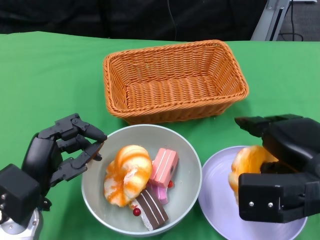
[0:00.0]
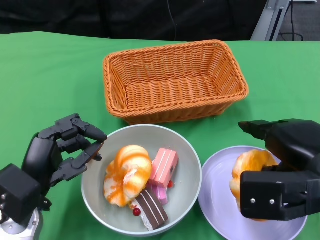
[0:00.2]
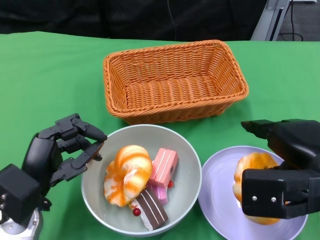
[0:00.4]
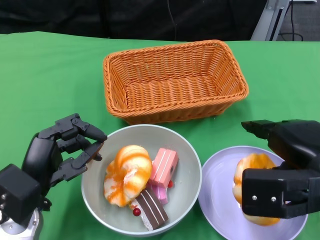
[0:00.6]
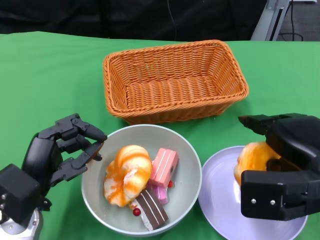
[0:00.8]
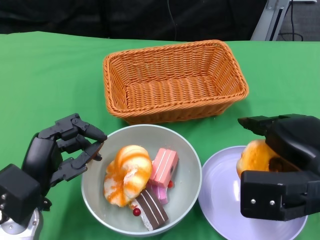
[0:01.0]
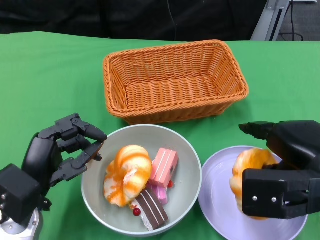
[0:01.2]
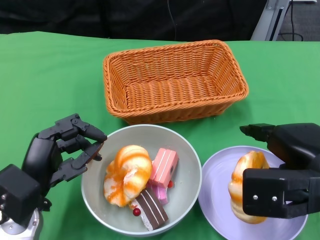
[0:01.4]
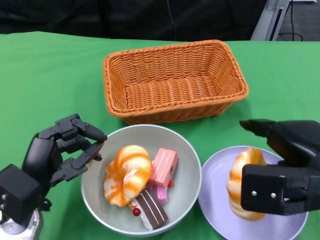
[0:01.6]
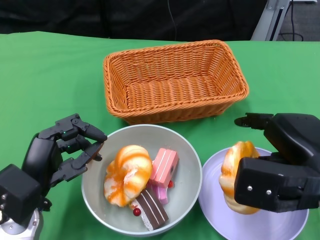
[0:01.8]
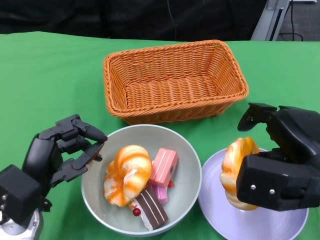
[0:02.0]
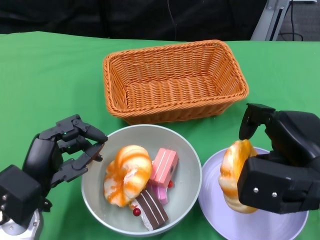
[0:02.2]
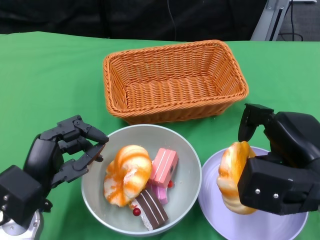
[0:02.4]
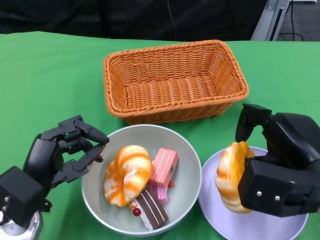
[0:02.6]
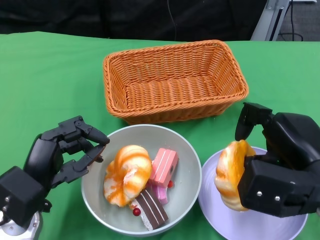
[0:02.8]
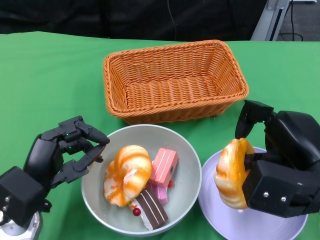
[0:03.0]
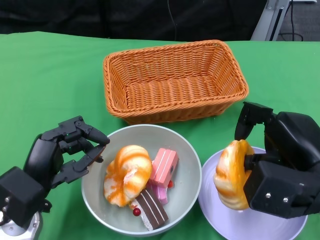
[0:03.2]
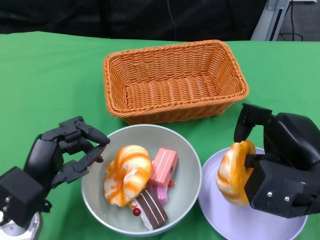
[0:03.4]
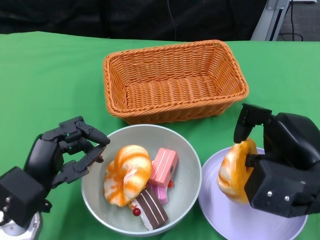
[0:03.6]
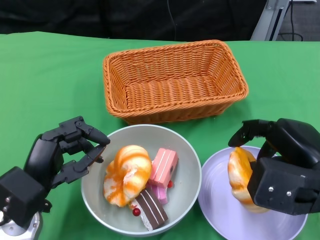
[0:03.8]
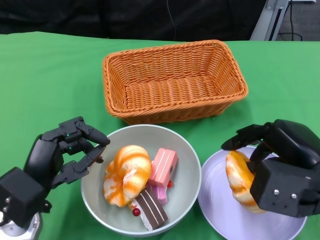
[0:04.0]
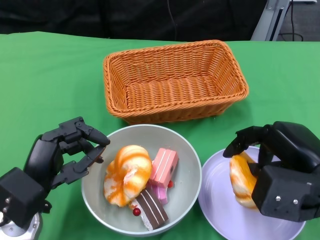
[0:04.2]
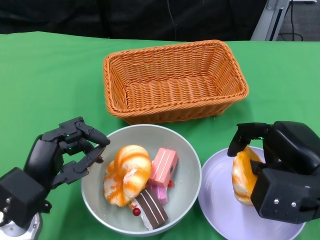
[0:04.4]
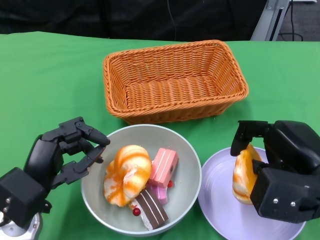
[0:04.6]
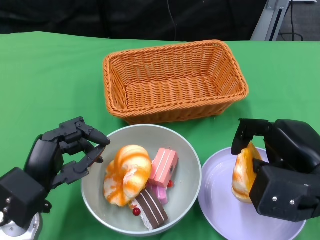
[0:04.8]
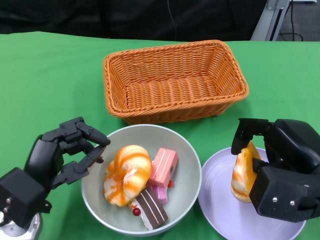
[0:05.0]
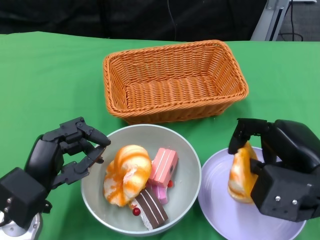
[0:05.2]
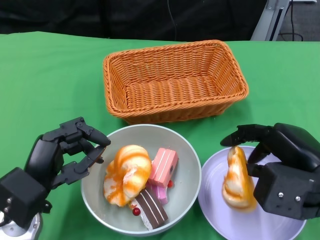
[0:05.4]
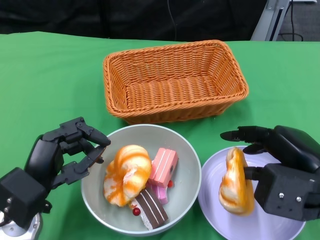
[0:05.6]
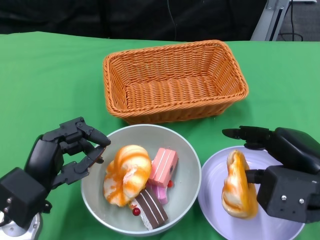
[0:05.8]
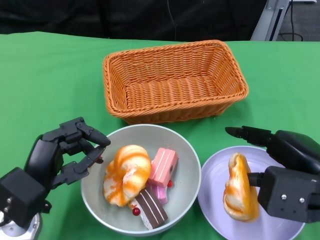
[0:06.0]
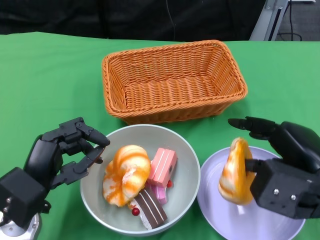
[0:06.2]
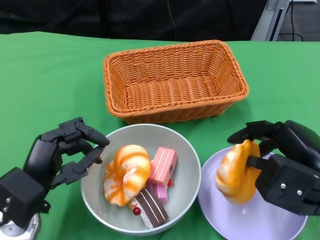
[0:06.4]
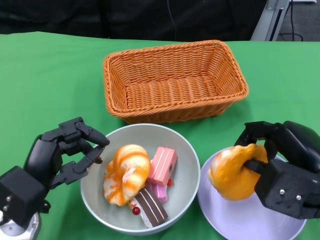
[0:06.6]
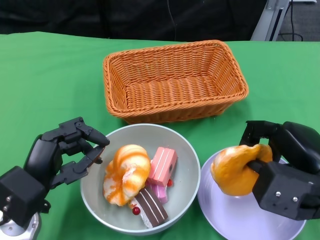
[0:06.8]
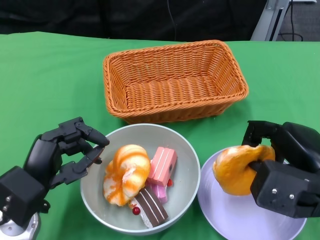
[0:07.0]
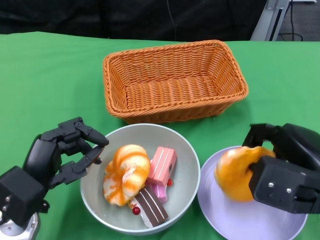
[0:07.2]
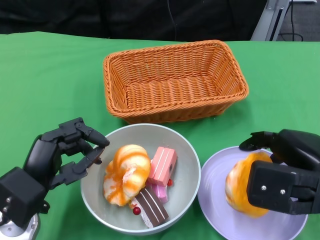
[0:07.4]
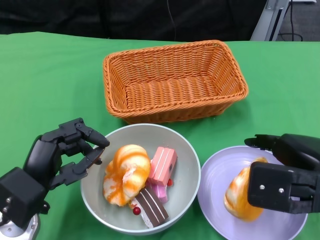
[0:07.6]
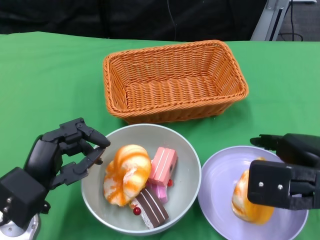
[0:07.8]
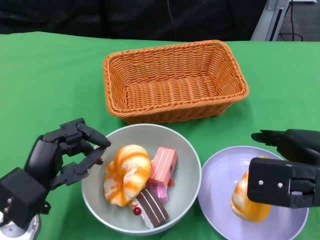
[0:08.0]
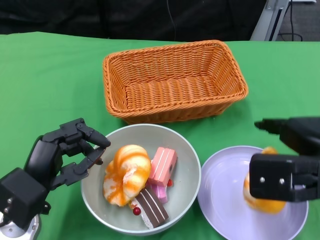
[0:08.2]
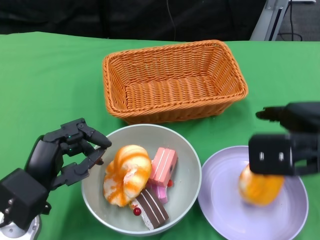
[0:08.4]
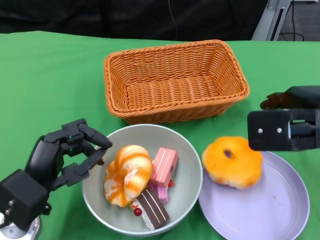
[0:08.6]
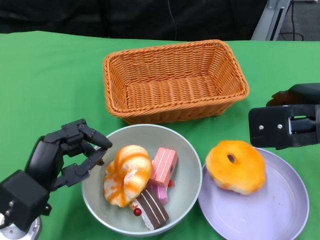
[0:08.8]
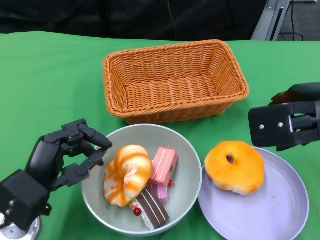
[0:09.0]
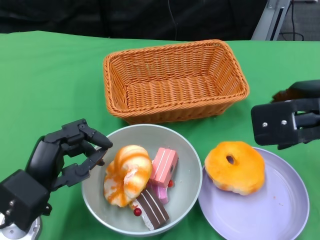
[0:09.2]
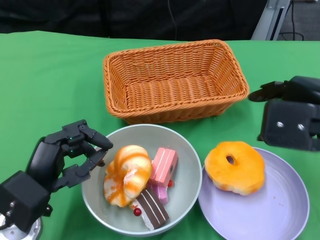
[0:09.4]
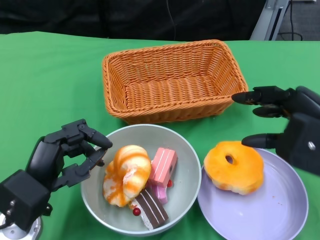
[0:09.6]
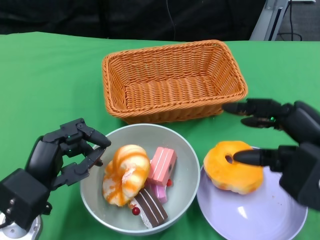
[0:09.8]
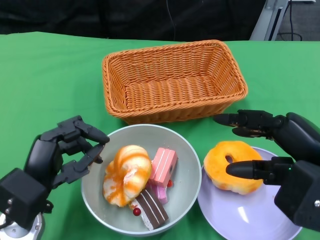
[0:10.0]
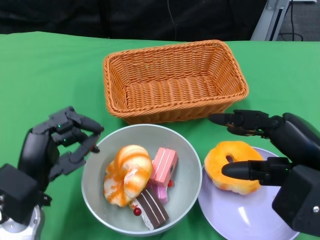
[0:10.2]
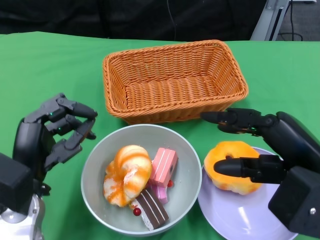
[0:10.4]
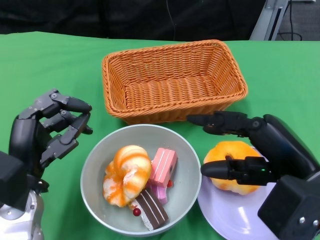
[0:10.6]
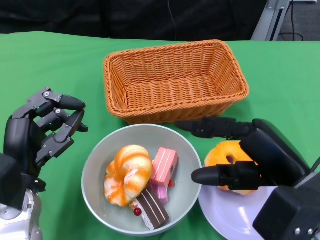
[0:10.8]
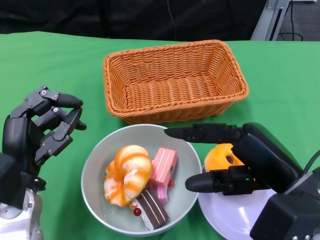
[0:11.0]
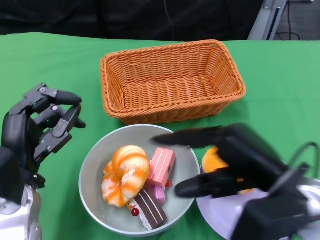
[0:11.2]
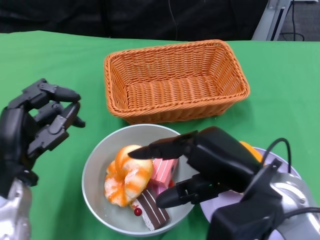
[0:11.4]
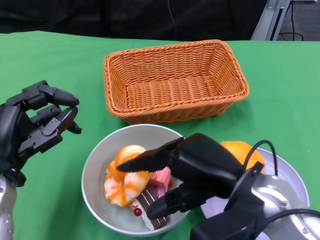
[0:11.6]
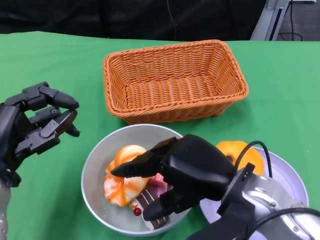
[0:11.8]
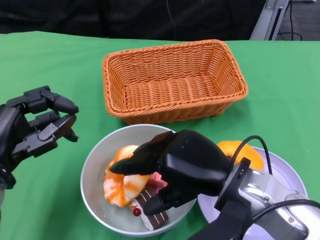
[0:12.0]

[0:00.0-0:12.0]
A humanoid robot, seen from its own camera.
0:00.0 to 0:01.6: There are only small adjustments of the hands.
0:03.0 to 0:06.0: There are only small adjustments of the hands.
0:06.0 to 0:07.6: The hands make only small movements.
0:07.6 to 0:09.0: The right hand goes about 10 cm upward and forward.
0:09.0 to 0:10.4: The right hand is displaced backward by roughly 10 cm.
0:10.4 to 0:12.0: The right hand is displaced to the left by some 10 cm, while the left hand ends up roughly 5 cm from where it was.

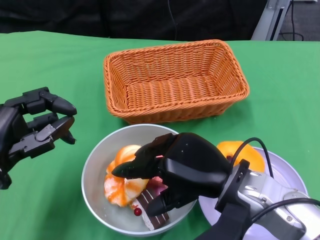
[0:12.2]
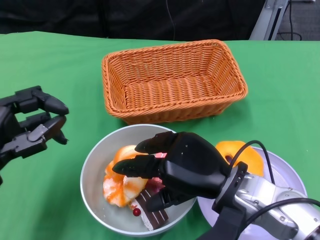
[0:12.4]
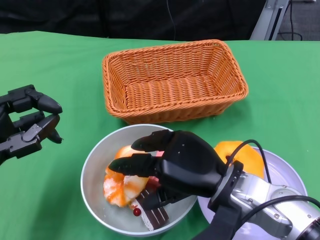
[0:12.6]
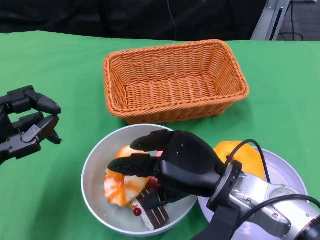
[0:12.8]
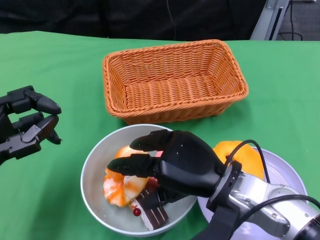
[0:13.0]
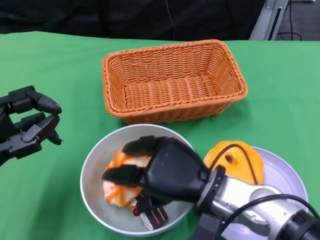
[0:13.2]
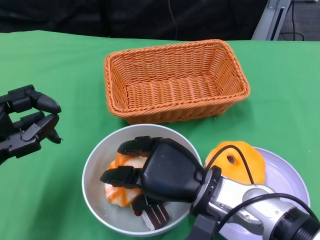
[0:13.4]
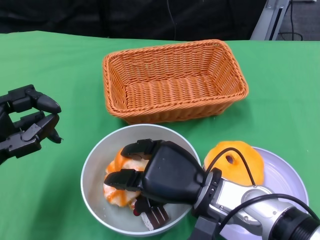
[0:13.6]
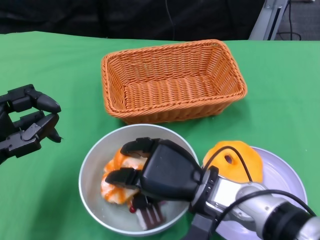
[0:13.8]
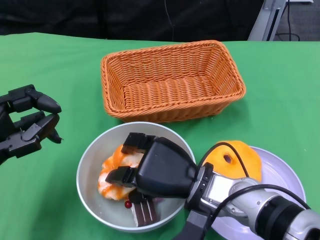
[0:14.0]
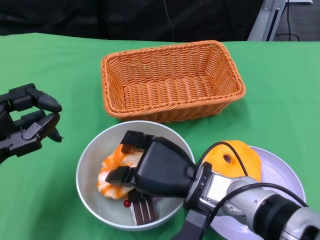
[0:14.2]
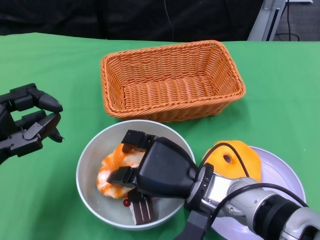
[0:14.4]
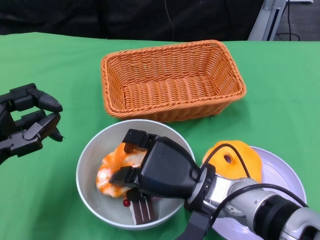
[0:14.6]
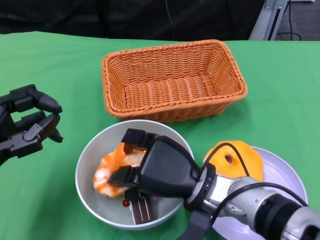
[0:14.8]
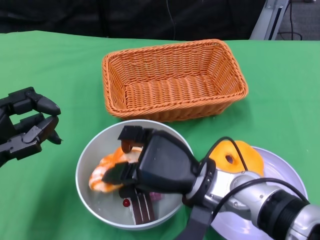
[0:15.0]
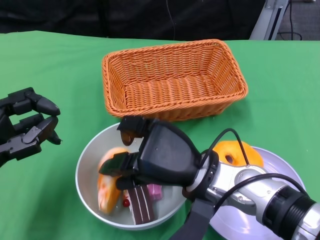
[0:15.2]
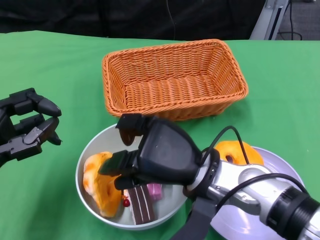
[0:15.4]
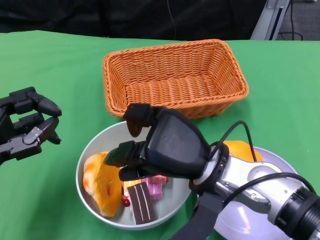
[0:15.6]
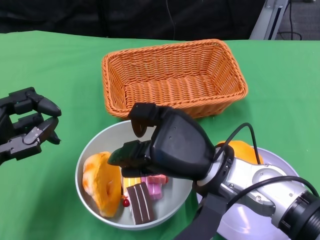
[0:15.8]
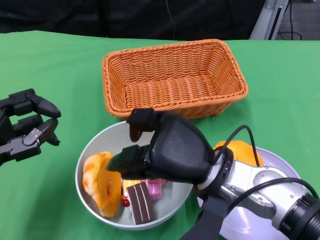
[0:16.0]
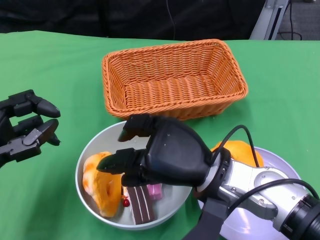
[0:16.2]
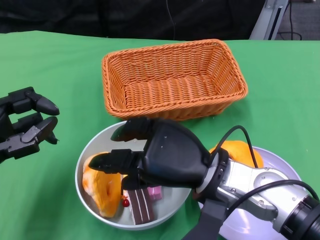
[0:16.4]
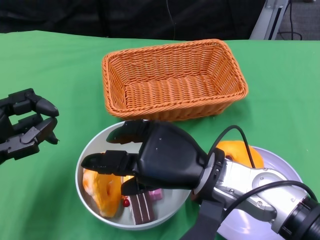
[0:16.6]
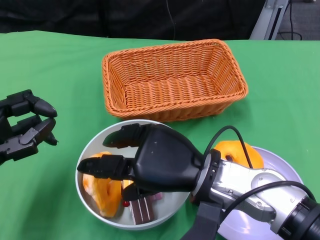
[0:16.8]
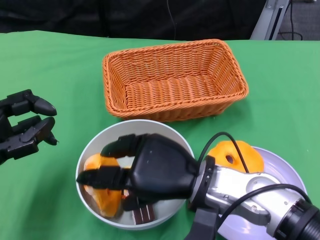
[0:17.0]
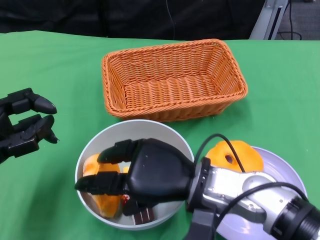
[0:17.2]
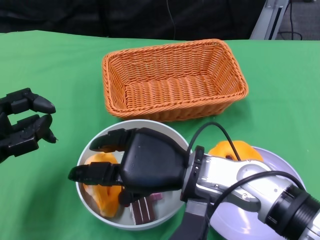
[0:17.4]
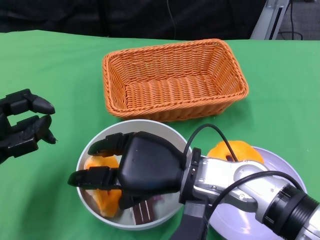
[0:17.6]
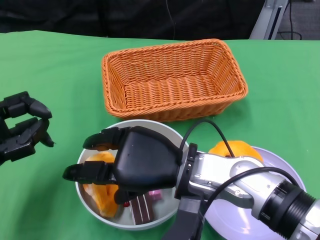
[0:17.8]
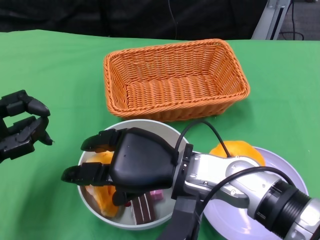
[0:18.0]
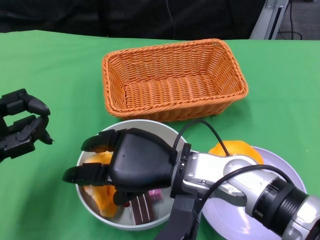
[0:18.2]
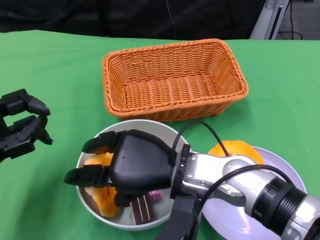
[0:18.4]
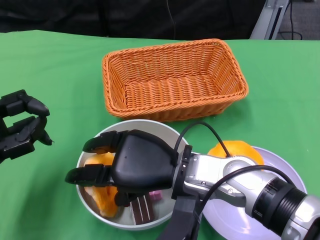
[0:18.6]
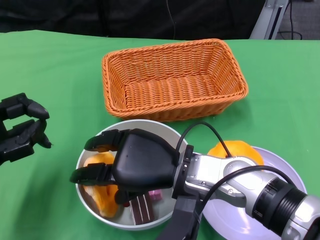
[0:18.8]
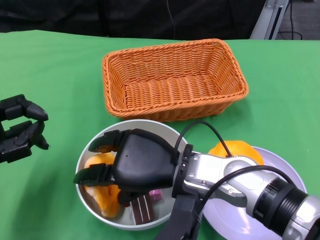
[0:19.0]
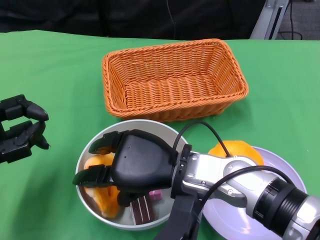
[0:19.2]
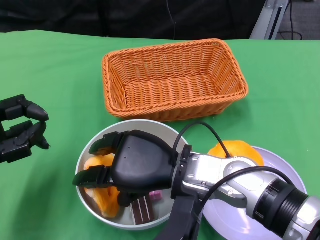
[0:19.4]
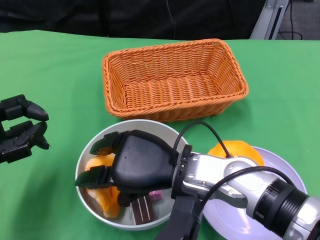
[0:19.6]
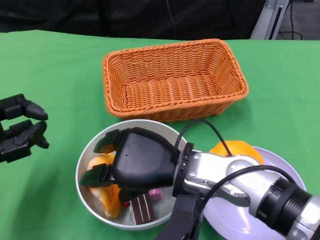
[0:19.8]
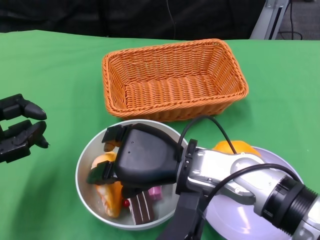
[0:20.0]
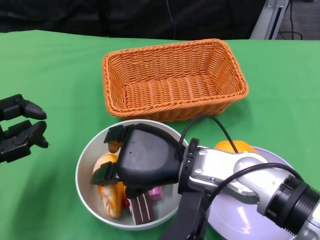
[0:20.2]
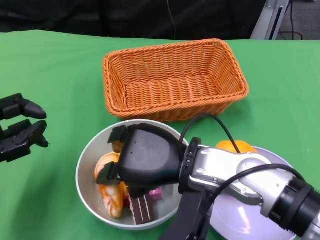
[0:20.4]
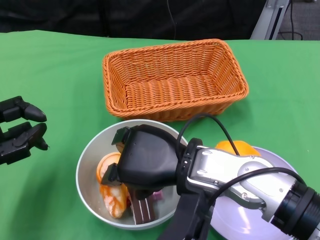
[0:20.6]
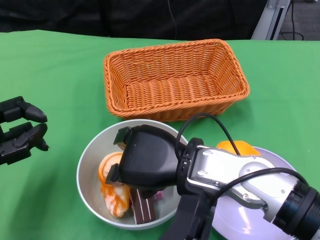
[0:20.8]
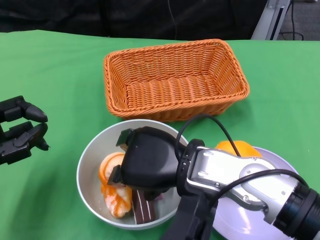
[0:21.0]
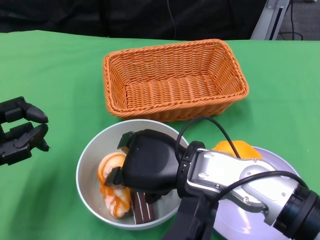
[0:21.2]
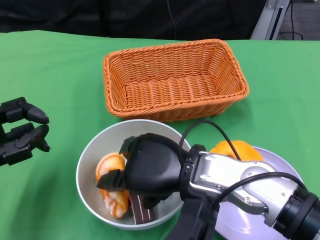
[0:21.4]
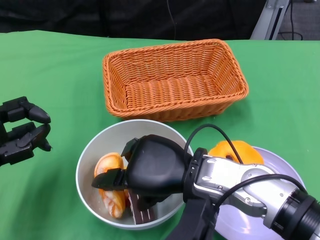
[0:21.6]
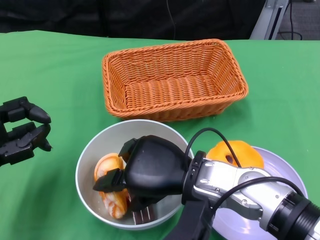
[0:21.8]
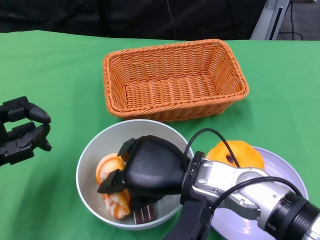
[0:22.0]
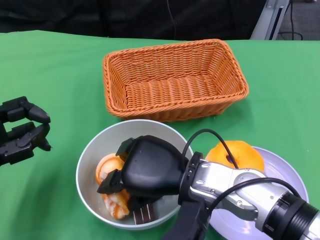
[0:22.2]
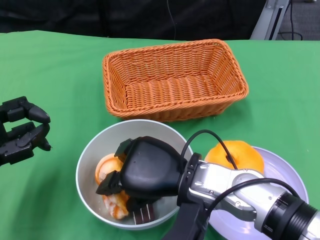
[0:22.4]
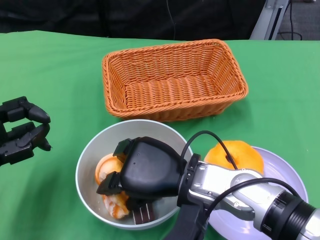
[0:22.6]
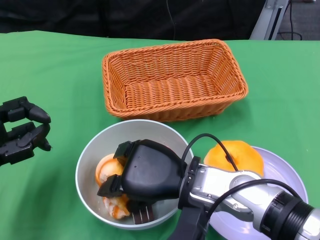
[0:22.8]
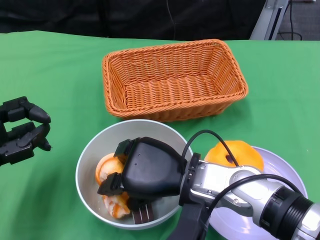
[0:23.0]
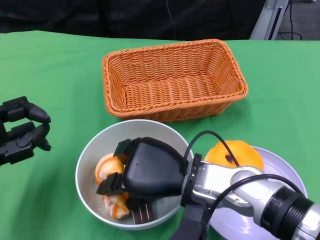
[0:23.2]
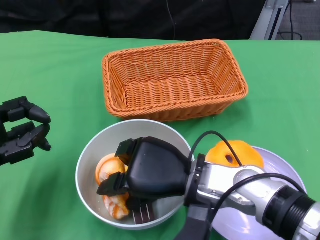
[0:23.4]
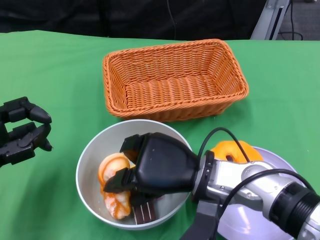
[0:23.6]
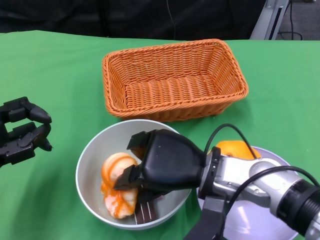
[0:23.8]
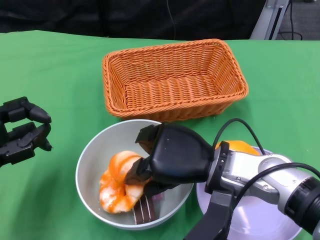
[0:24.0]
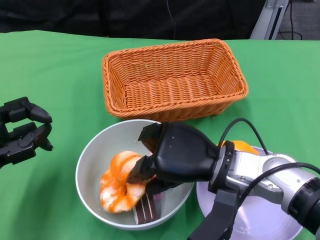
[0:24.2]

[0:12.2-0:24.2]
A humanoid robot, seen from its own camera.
0:12.2 to 0:13.8: The right hand goes about 5 cm downward.
0:15.2 to 0:16.6: The hands make only small movements.
0:18.2 to 0:19.8: Both hands stay about where they are.
0:19.8 to 0:22.6: The hands move only a little.
